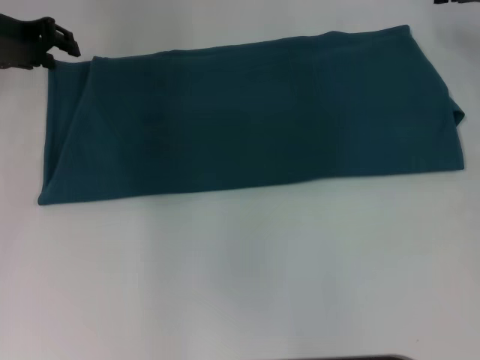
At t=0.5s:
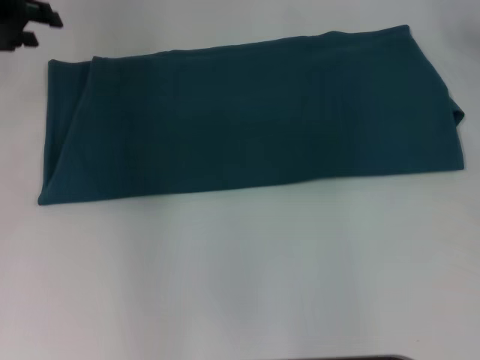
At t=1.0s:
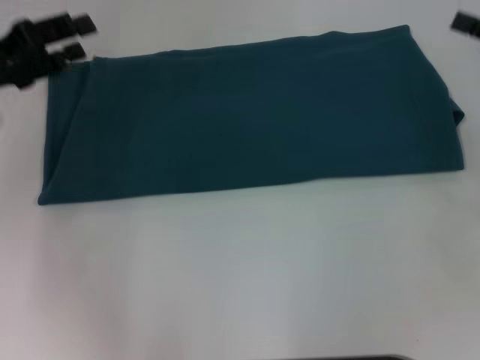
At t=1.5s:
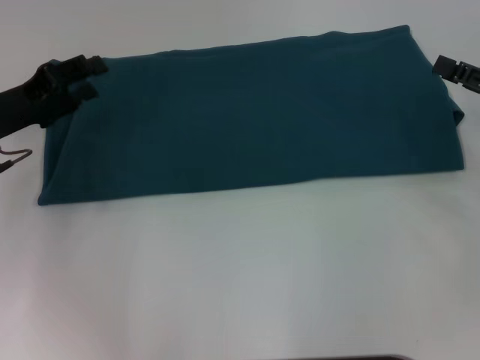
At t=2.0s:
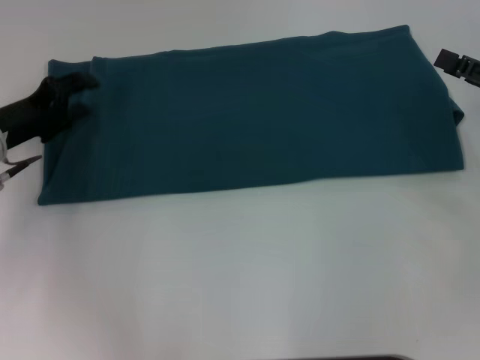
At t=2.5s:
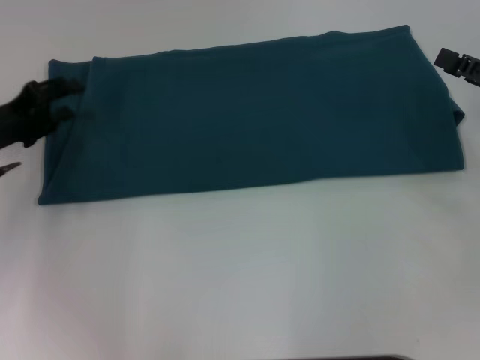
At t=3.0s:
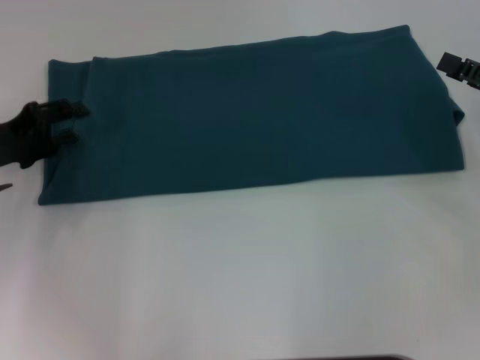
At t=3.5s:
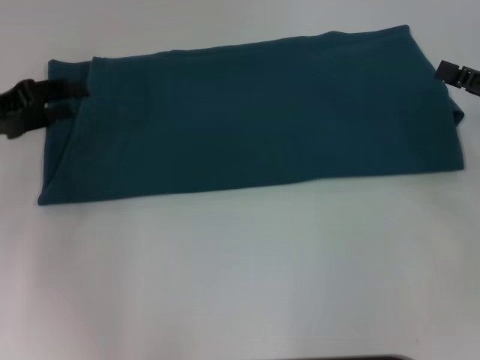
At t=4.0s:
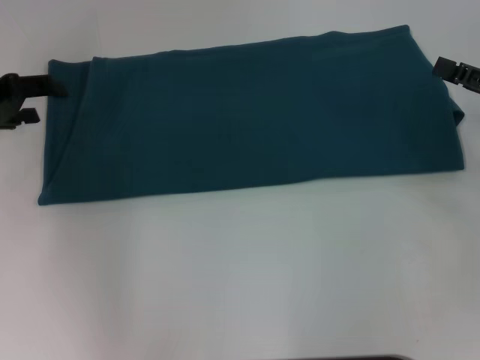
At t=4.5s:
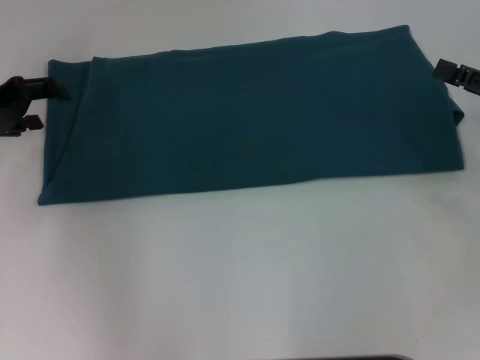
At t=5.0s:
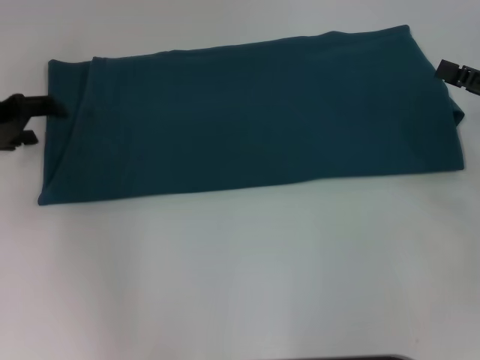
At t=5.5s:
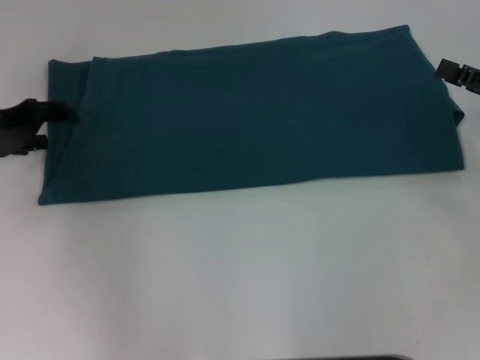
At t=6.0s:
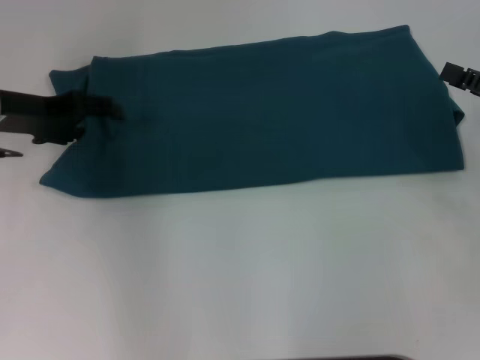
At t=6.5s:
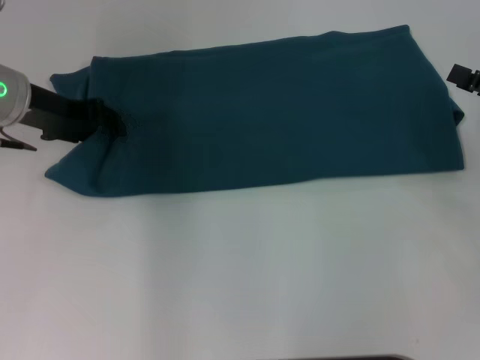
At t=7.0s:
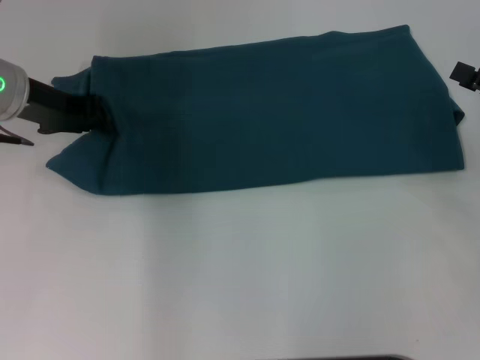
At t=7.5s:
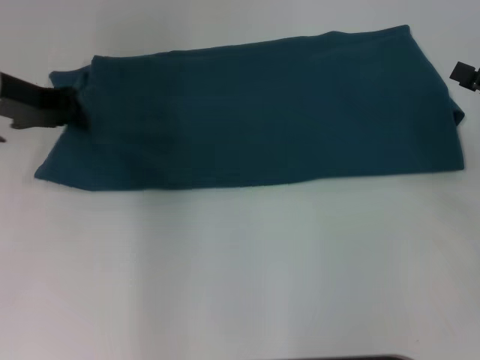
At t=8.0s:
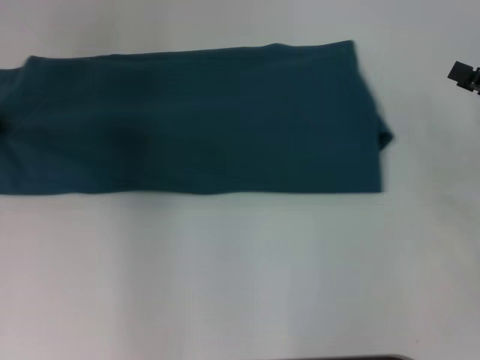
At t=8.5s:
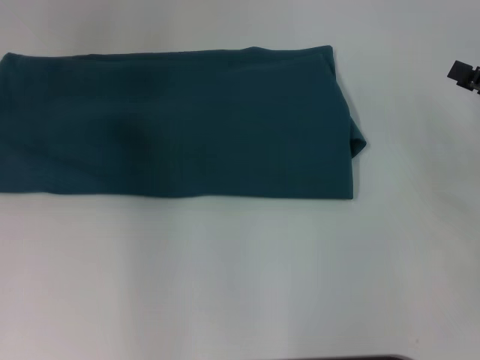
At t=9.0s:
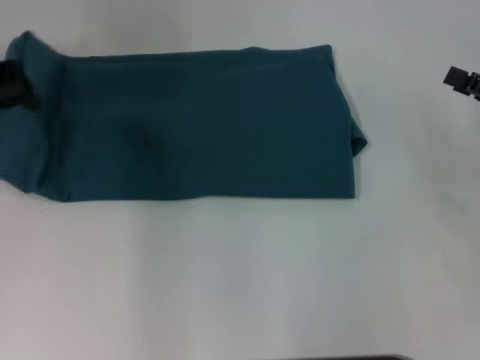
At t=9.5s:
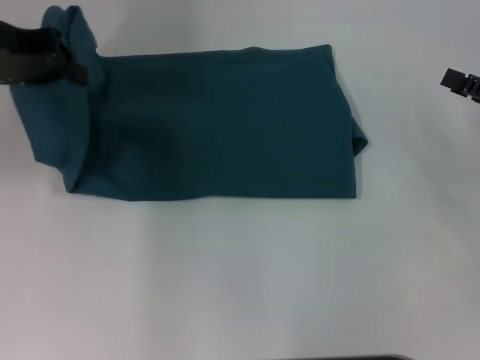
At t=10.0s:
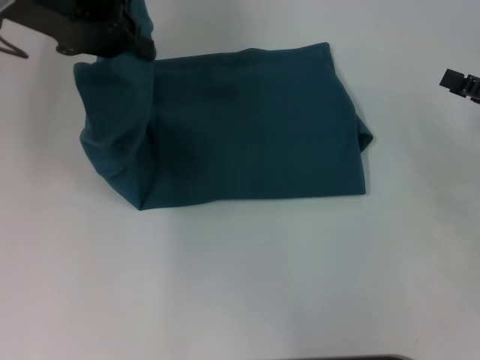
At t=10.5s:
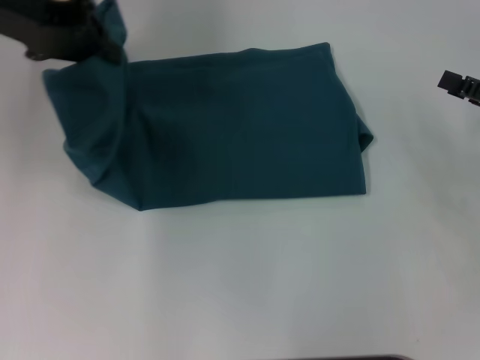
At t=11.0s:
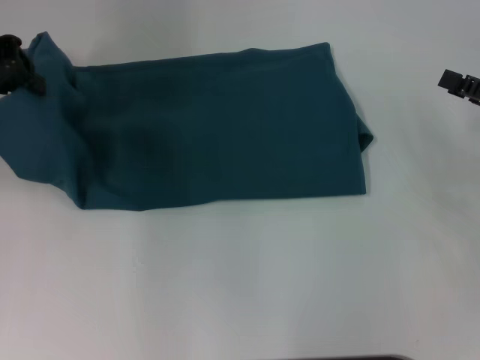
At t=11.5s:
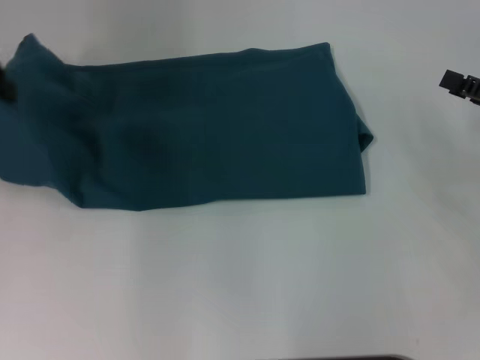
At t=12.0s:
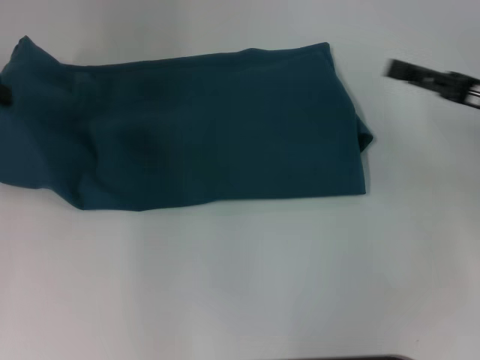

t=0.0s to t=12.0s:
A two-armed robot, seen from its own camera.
t=0.0s to t=2.0s: The left gripper is displaced downward and backward by roughly 15 cm, while the right gripper travels backward and downward by about 20 cm.
t=2.0s to t=4.0s: The left gripper moves upward, about 5 cm.
t=4.0s to t=6.0s: The left gripper is displaced to the right by roughly 5 cm.
t=6.0s to t=8.0s: The left gripper moves roughly 5 cm, and closes up.
t=8.0s to t=10.0s: The left gripper travels to the right and upward by approximately 15 cm.
t=10.0s to t=12.0s: The right gripper changes place by some 5 cm. Meanwhile the left gripper heads to the left, covering approximately 10 cm.

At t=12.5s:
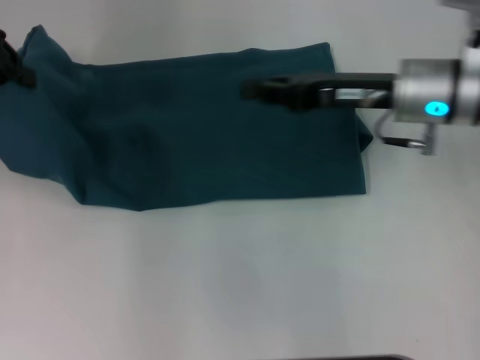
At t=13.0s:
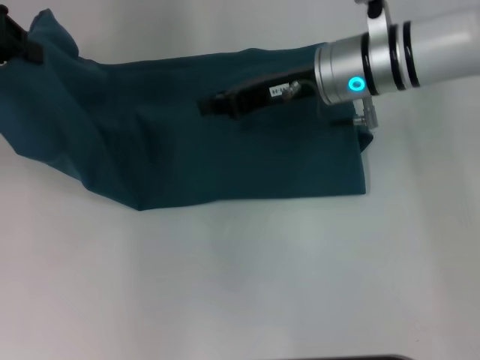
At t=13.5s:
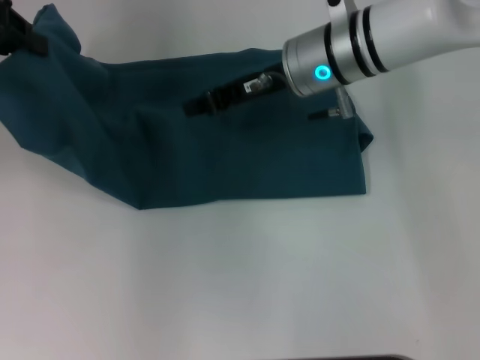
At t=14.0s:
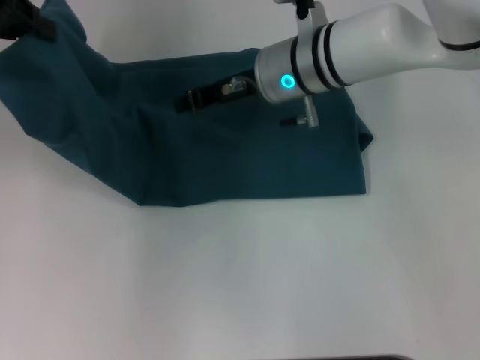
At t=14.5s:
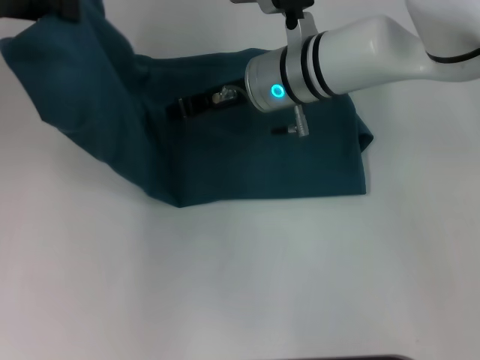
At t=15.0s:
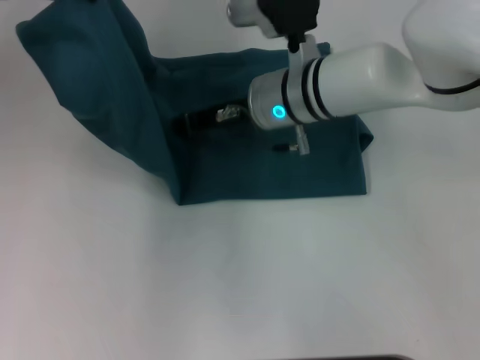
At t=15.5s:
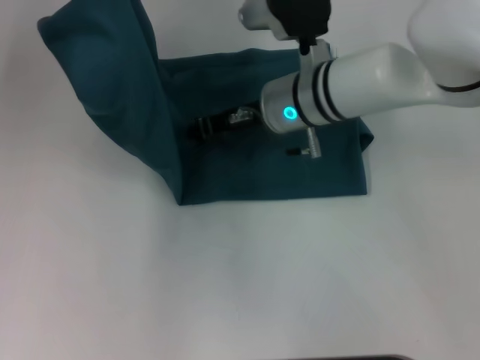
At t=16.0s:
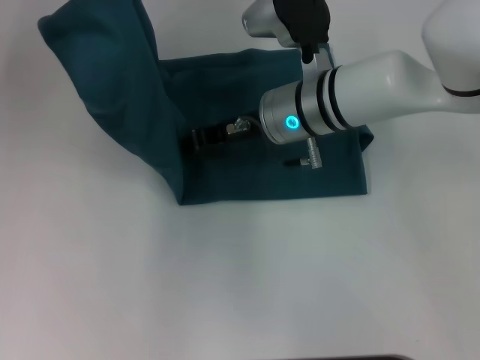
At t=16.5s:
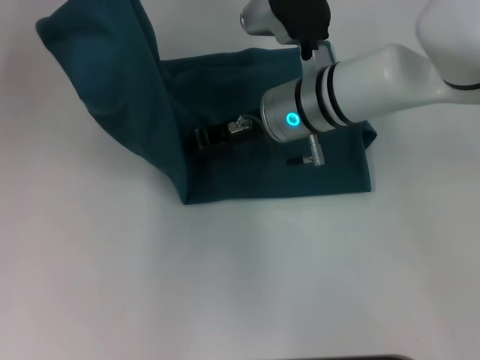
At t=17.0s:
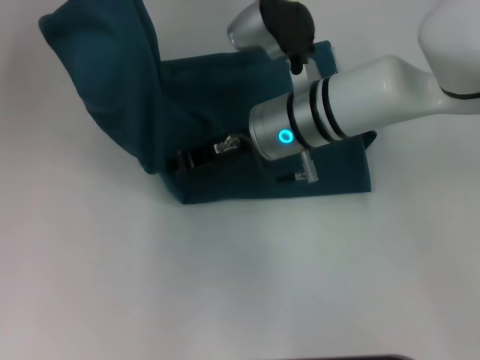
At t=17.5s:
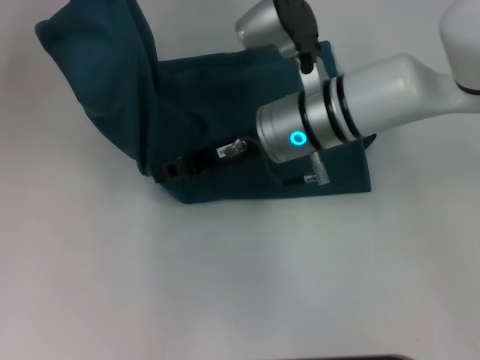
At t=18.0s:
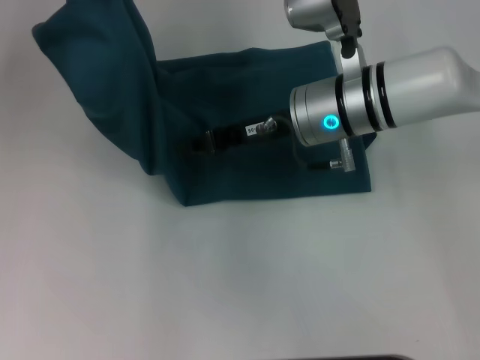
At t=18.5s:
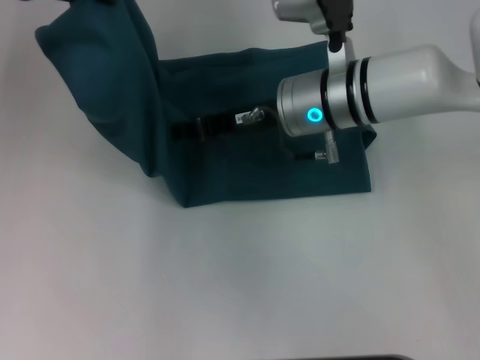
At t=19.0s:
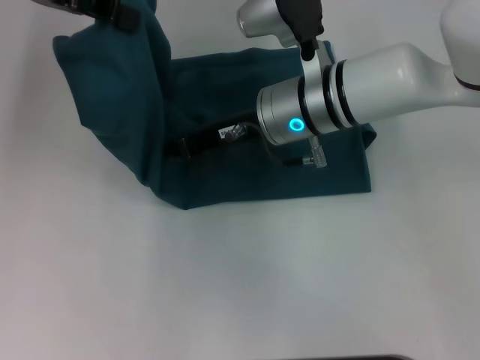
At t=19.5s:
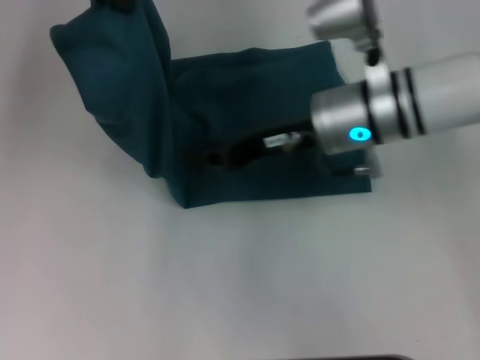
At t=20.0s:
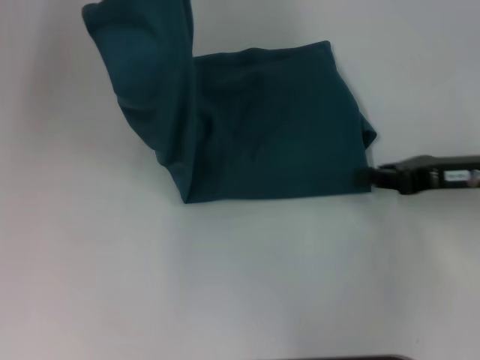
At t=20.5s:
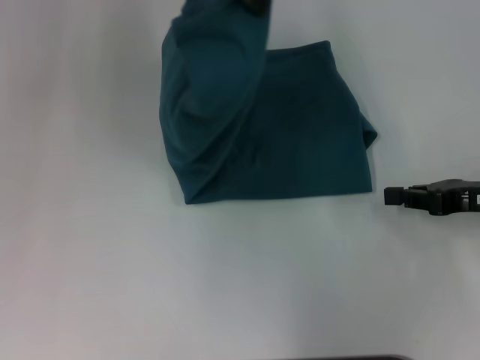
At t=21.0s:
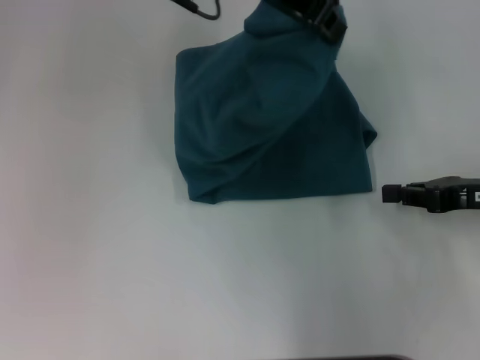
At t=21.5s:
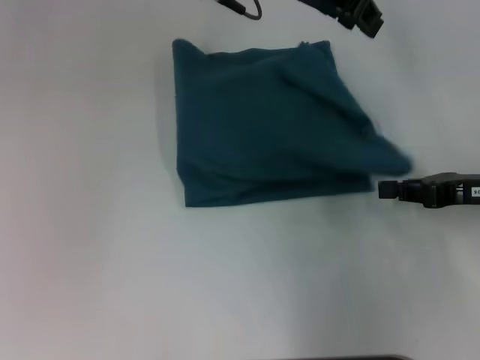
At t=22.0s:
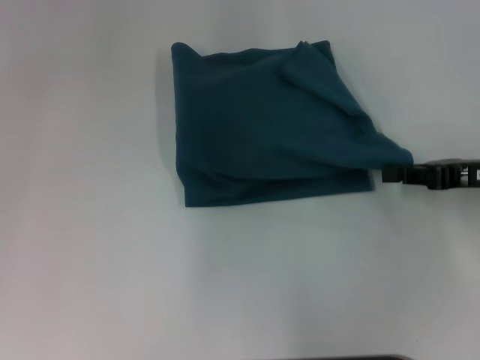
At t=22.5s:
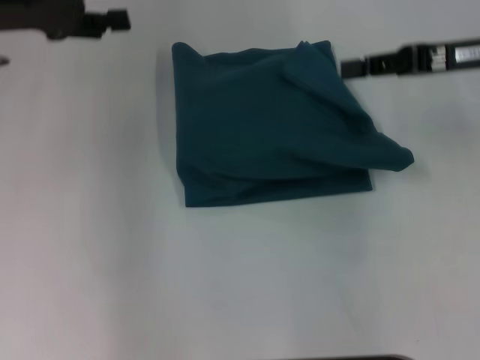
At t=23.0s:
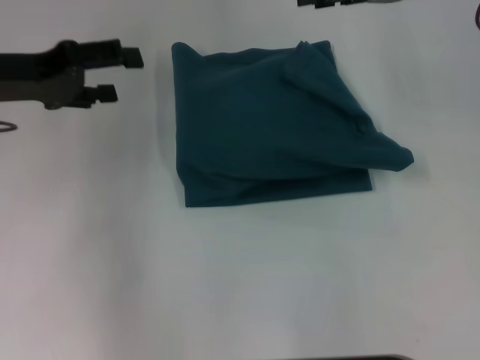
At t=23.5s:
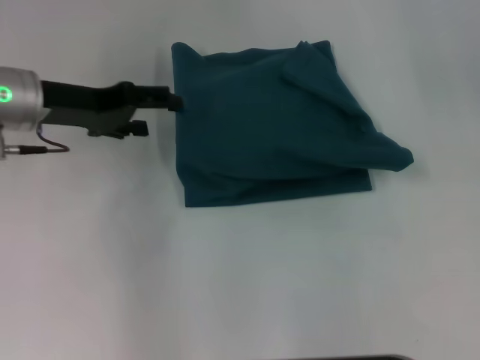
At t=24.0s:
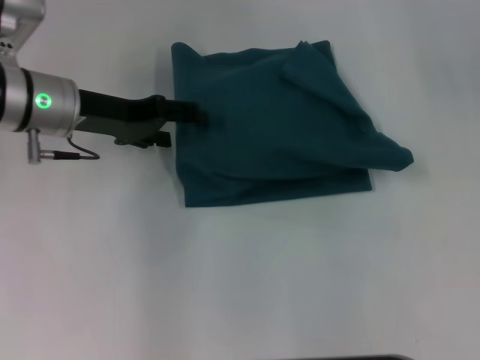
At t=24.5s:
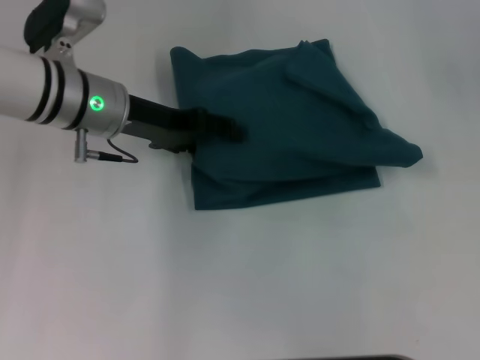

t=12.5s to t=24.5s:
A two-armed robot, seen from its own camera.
Step, t=12.5s to t=18.5s: Press the middle of the clothes with your right hand.
Step, t=19.0s to t=21.0s: Fold the clothes to the left.
t=12.5s to t=14.5s: The right gripper shifts approximately 15 cm to the left, and closes. Meanwhile the left gripper moves roughly 5 cm.
t=14.5s to t=18.5s: There are only small adjustments of the grippers.
t=18.5s to t=20.5s: The right gripper heads to the right and backward, covering about 25 cm. The left gripper is displaced to the right by roughly 15 cm.
t=20.5s to t=22.5s: The left gripper travels to the left and downward by about 15 cm, and opens up; the right gripper shifts about 15 cm upward and forward.
t=22.5s to t=24.5s: The left gripper moves downward and to the right, about 15 cm. The right gripper goes approximately 5 cm upward, and opens.

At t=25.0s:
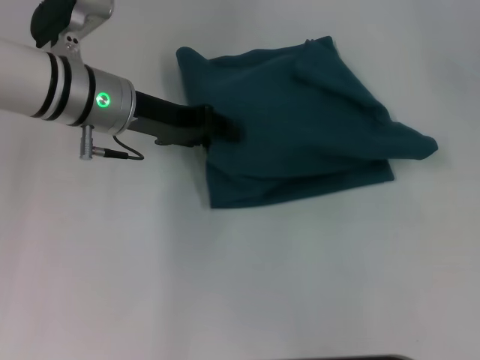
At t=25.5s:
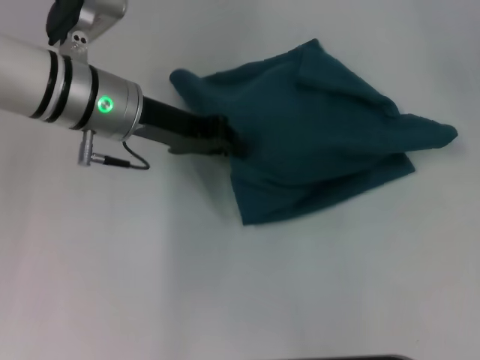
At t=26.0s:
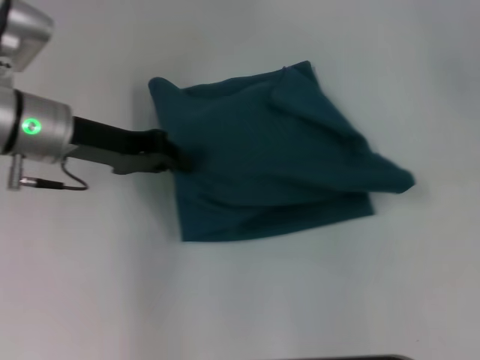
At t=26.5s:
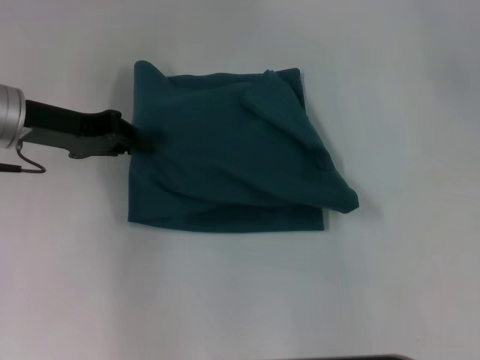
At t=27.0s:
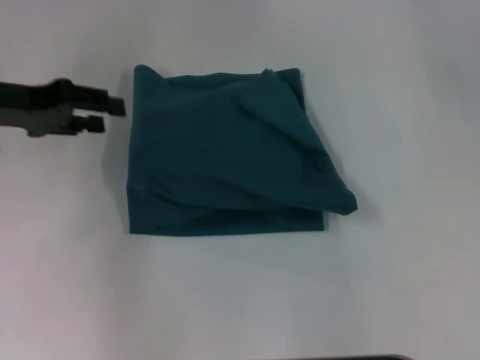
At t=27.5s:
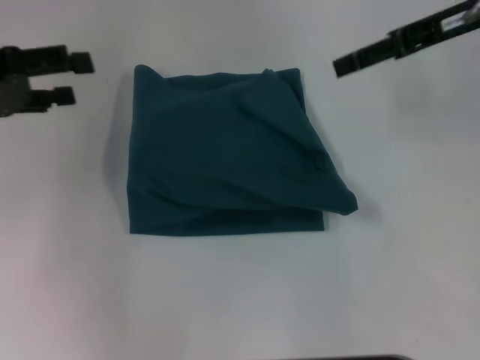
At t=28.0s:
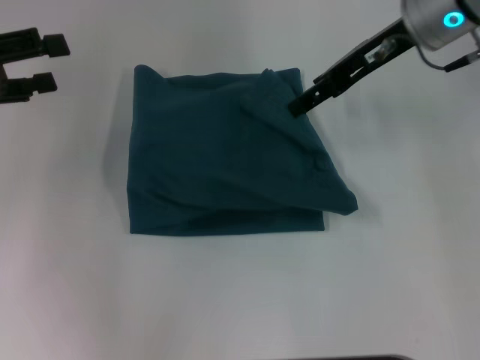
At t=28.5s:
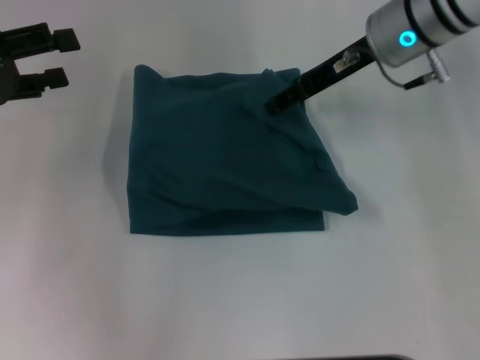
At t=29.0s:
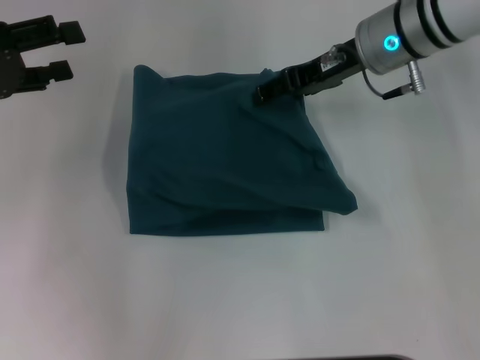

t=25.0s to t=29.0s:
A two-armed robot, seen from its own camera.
t=25.0s to t=27.0s: The left gripper is displaced to the left by about 15 cm, and closes, then opens again.
t=27.0s to t=29.0s: The right gripper goes some 15 cm to the left and downward. The left gripper opens.
